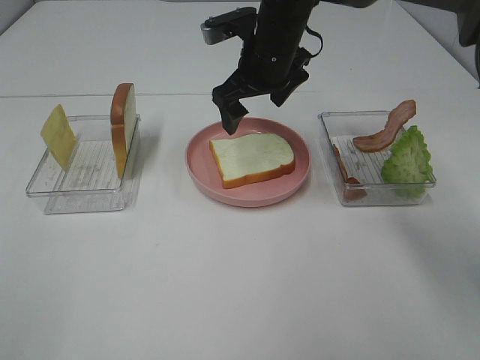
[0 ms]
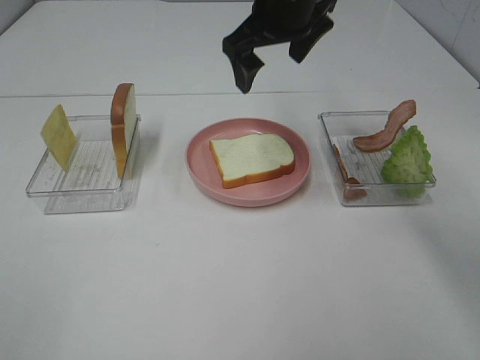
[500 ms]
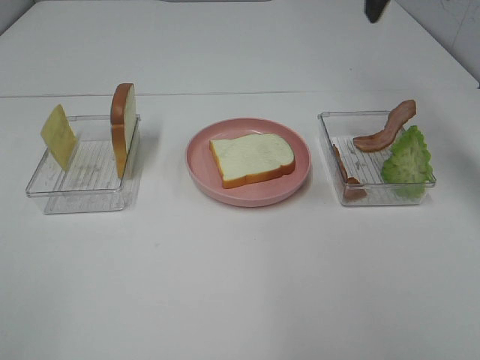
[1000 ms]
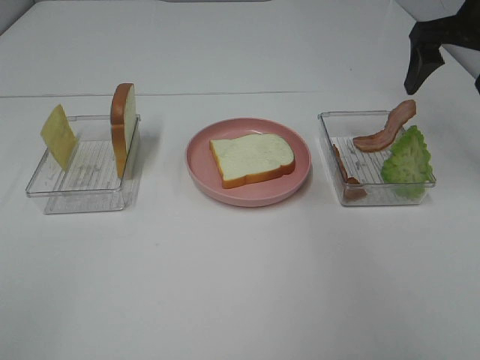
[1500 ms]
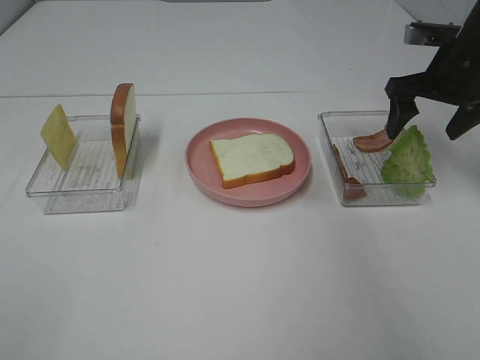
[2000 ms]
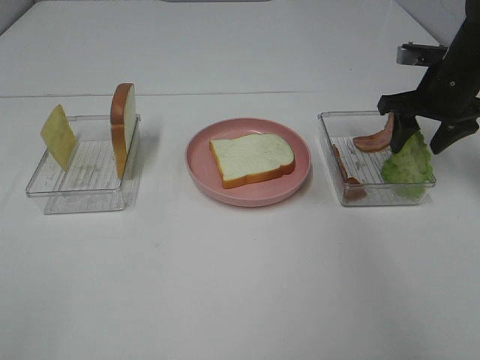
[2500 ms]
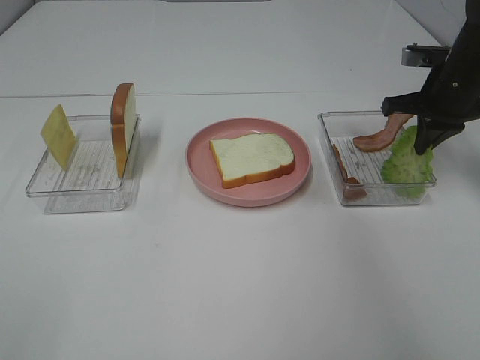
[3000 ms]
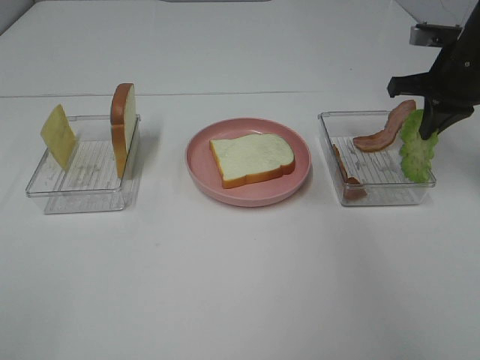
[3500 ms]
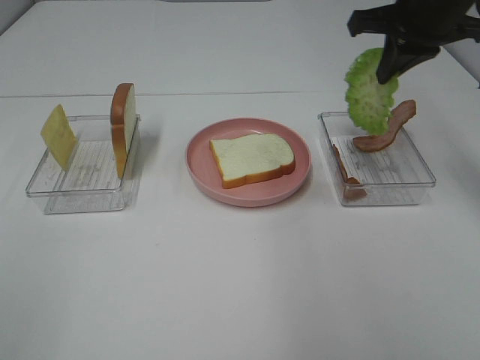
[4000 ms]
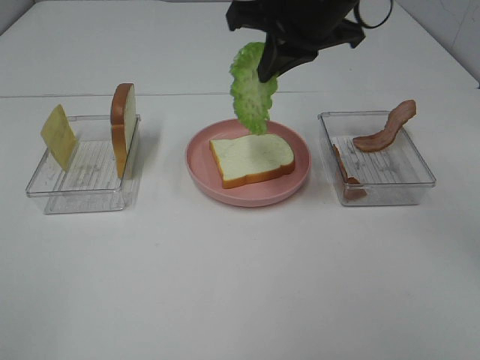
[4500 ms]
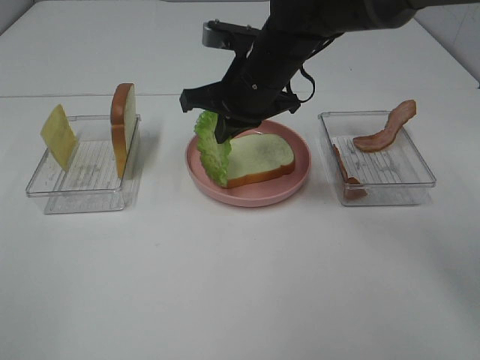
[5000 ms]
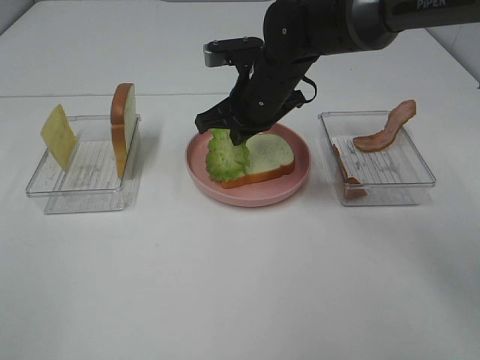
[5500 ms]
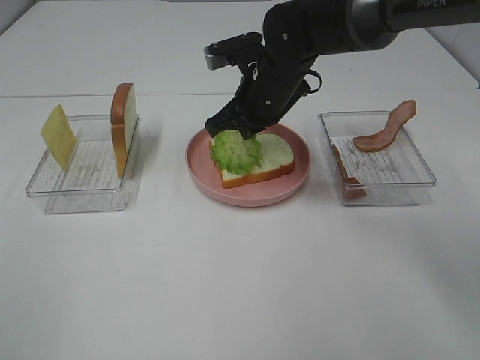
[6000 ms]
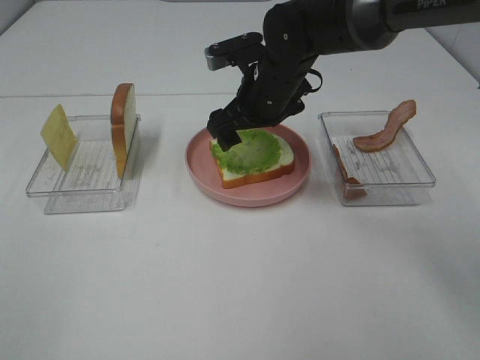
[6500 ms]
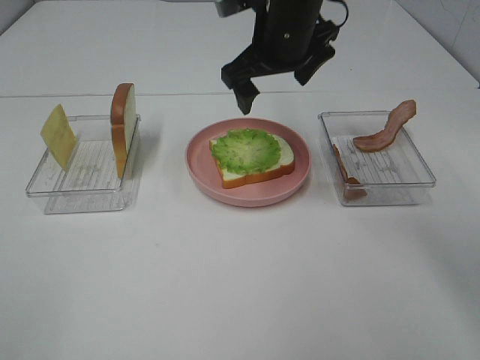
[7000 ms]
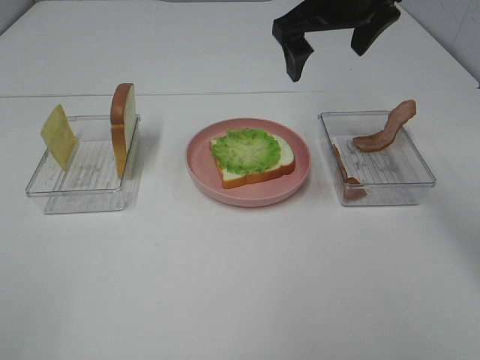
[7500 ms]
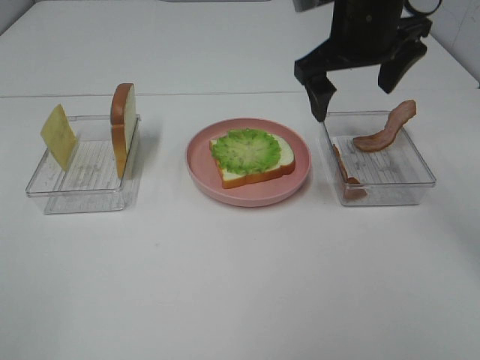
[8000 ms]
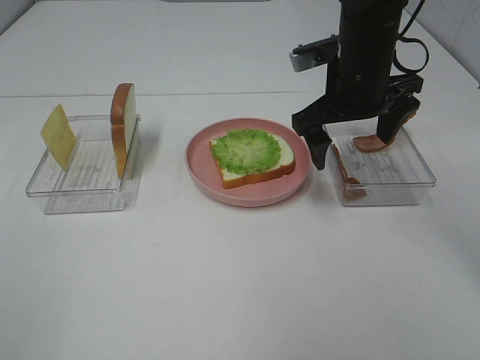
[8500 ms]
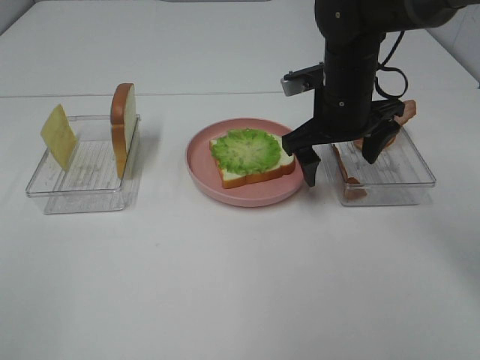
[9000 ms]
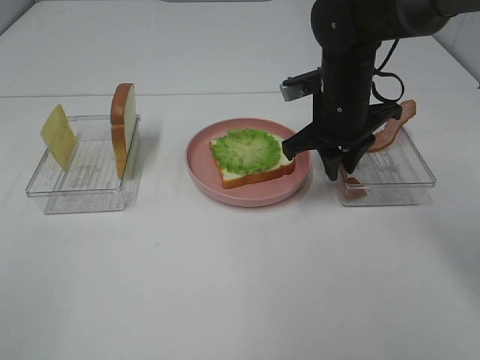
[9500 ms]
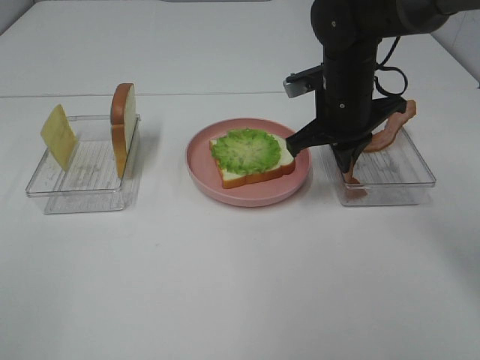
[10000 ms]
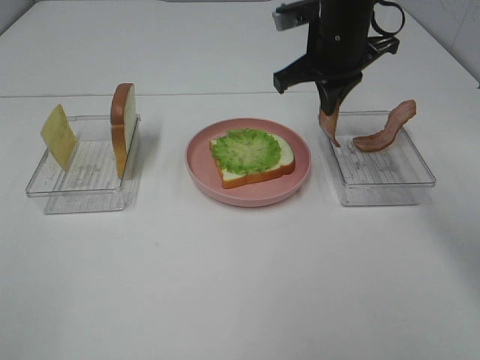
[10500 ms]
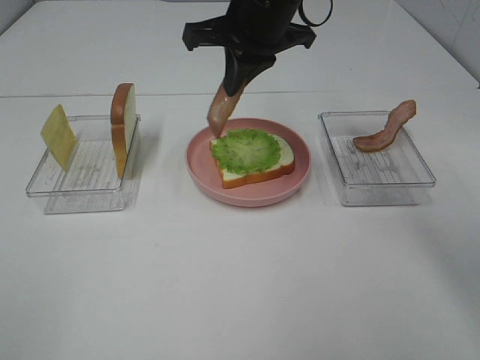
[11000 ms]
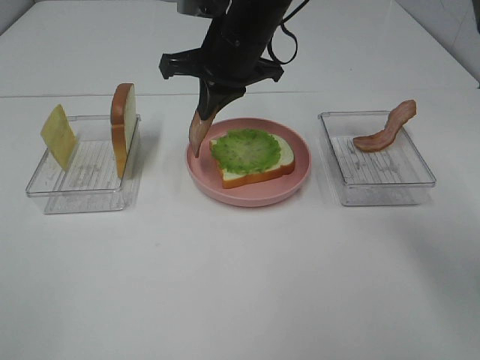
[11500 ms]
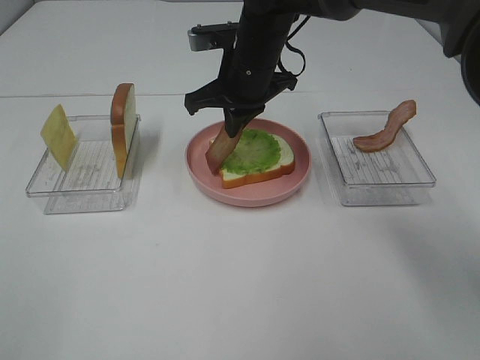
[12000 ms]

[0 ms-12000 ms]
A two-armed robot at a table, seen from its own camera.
Task of the whole recording: Make sandwiches.
Step, 500 ms to 3000 ms: Right hand:grab the lettuce slice.
Step, 3500 ms to 6500 ms: Right hand:place the lettuce slice on the bread slice.
Step, 7000 ms to 9500 ms: Right hand:grab the bacon.
0 ms to 2000 ms: The right gripper shifts roughly 25 cm to the right.
2000 ms to 4000 ms: The right gripper shifts approximately 10 cm upward and to the left, and closes up.
4000 ms to 6000 ms: The right gripper goes about 20 cm to the left and downward.
6000 ms to 8000 ms: The right gripper travels upward and to the right by roughly 15 cm, and opens.
8000 ms to 10000 ms: The right gripper goes approximately 10 cm downward, and closes.
10000 ms to 12000 ms: The right gripper goes approximately 10 cm to the left.

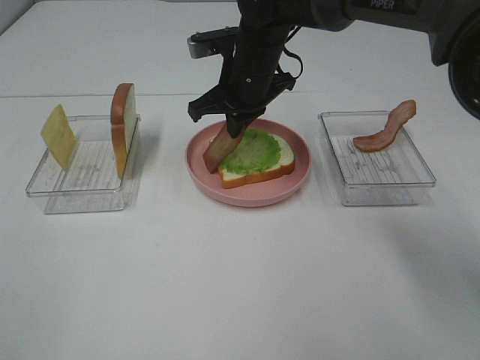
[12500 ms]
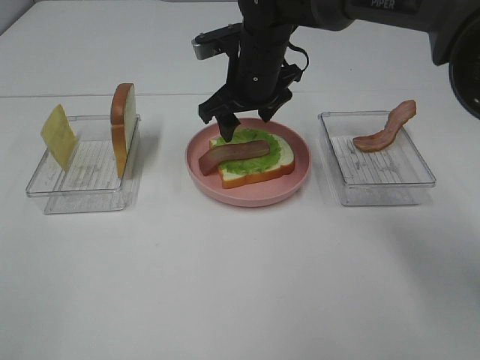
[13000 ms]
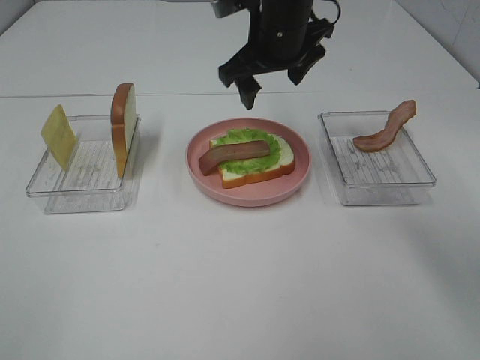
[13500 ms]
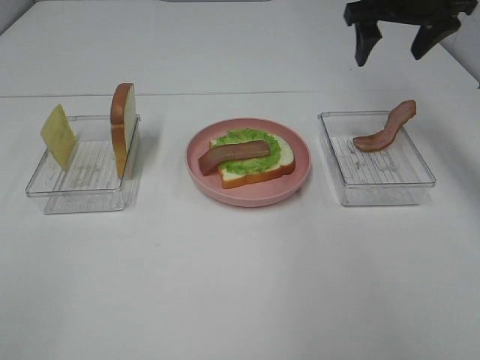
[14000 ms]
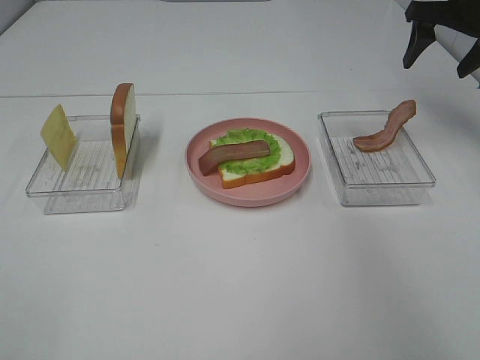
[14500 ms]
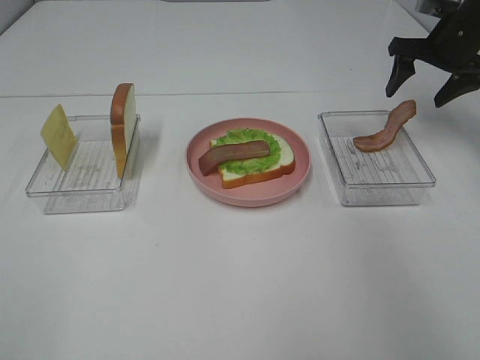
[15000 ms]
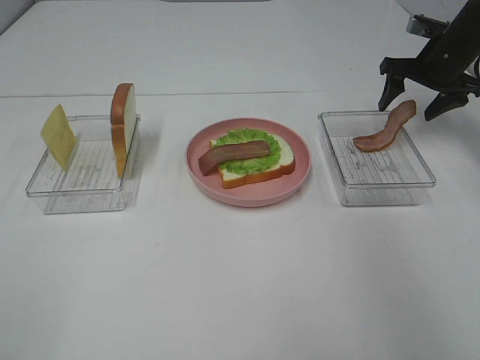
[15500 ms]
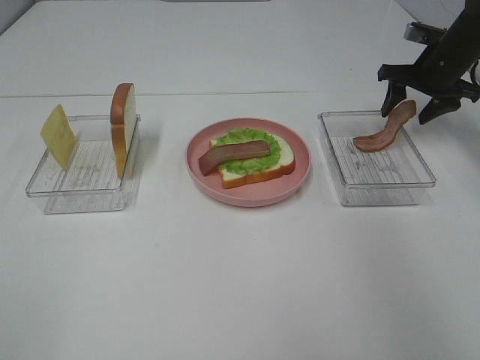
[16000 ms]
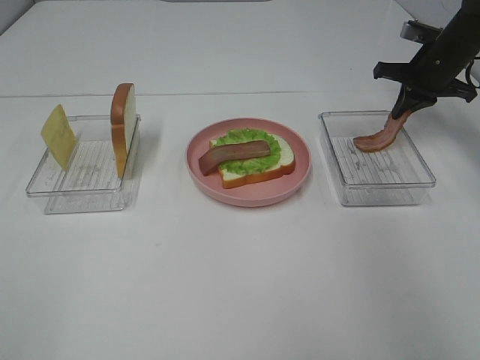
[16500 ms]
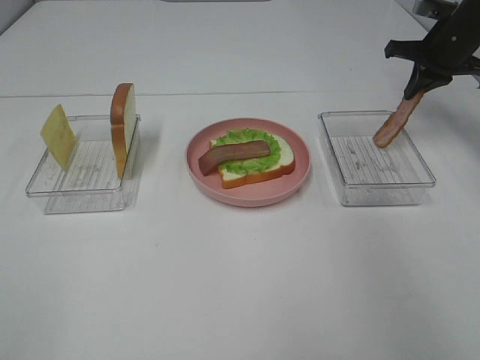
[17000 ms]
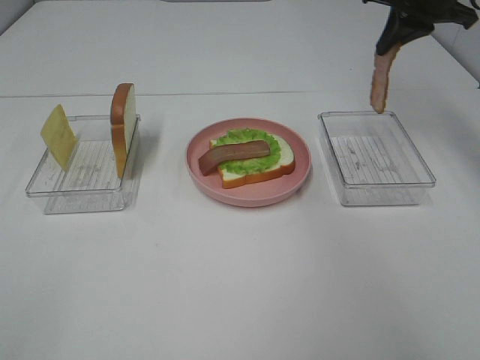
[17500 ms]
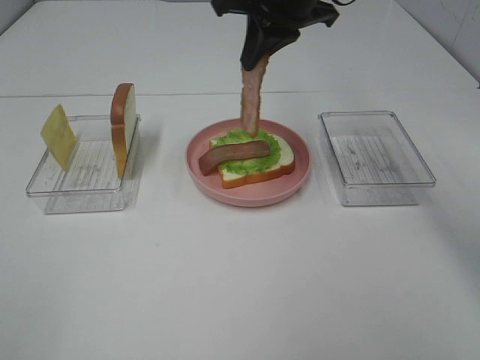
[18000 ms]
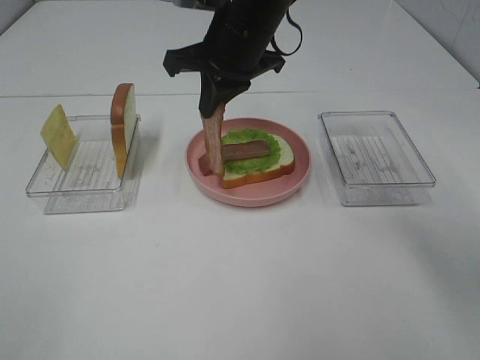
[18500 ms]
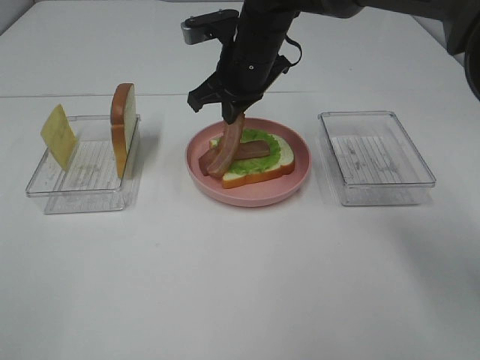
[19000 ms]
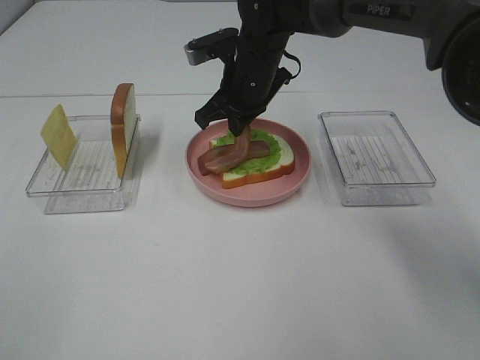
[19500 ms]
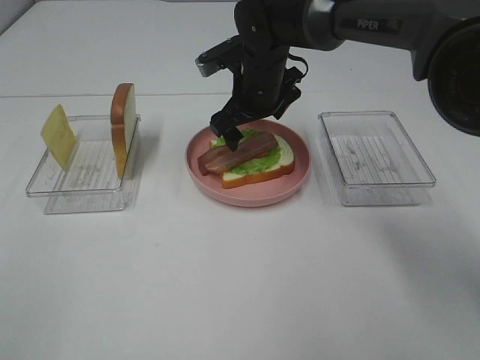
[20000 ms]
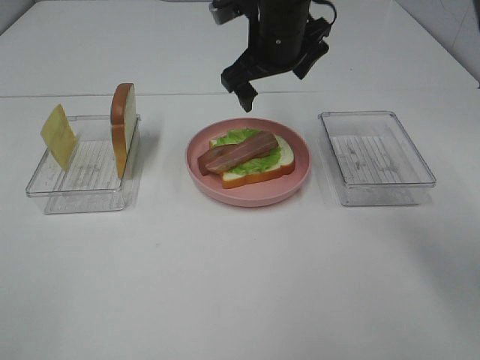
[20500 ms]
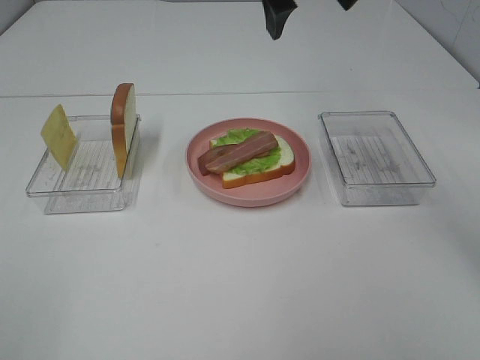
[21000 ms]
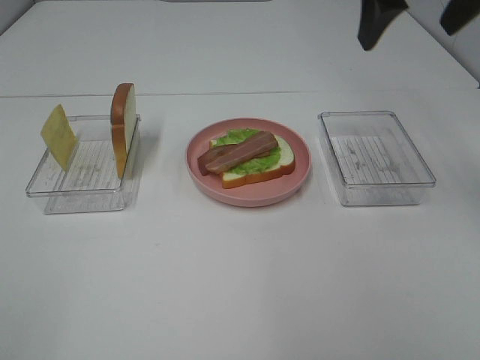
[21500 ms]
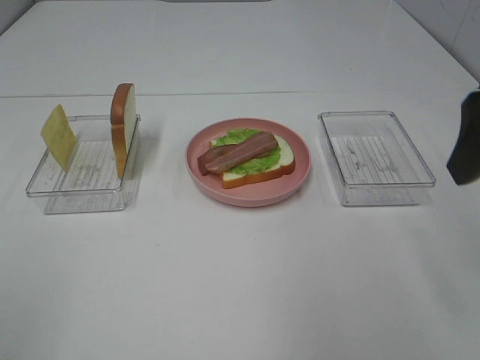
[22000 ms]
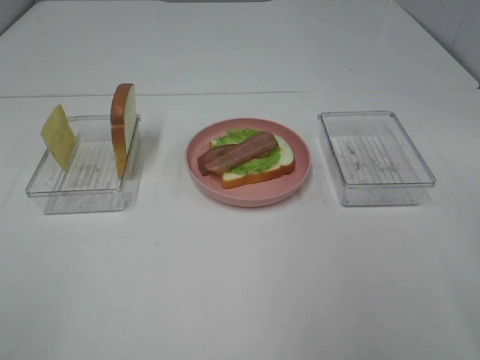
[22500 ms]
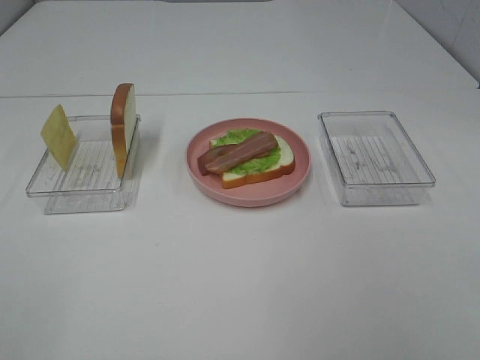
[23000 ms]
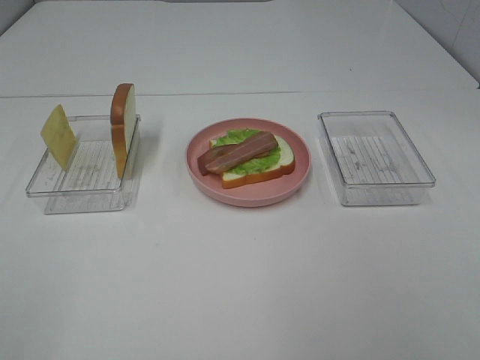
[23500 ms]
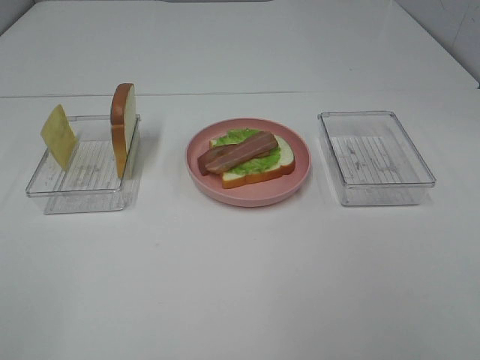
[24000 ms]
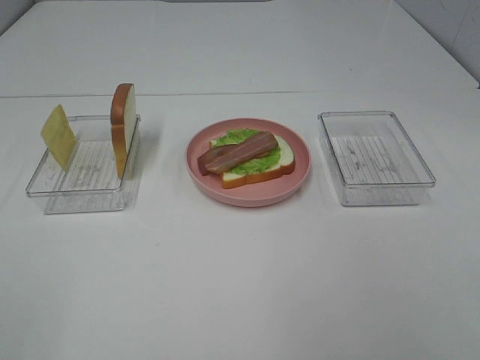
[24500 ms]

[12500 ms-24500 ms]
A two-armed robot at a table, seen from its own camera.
Task of the whole recording: Make sandwiches.
Step, 13500 ms to 17000 ms: Right hand:grab the bacon.
Step, 17500 ms to 20000 ms: Right hand:place bacon on bacon.
12500 ms to 14500 ms: The right gripper is displaced to the right by approximately 30 cm, and opens up.
14500 ms to 16500 ms: The right gripper travels downward by roughly 10 cm, and closes up.
16500 ms to 18500 ms: The right gripper is displaced to the left by roughly 30 cm.
18500 ms to 20500 ms: The right gripper travels downward and back again, about 10 cm each way, and opens up.
20500 ms to 22500 ms: The right gripper goes about 40 cm backward and to the right.

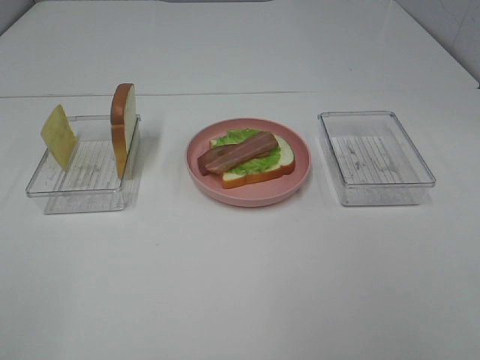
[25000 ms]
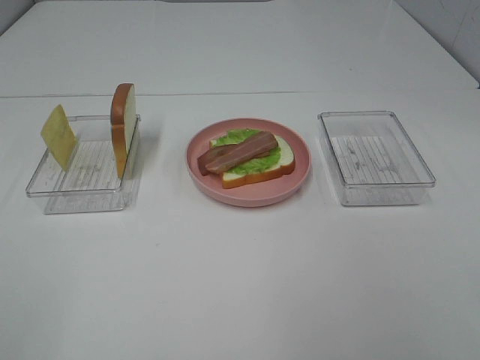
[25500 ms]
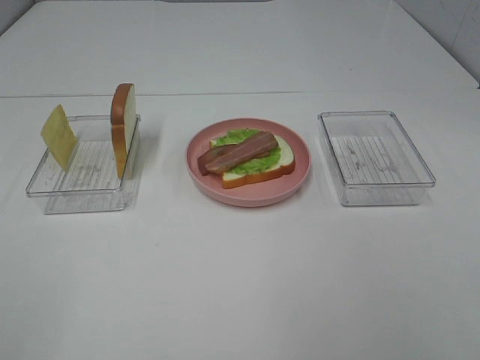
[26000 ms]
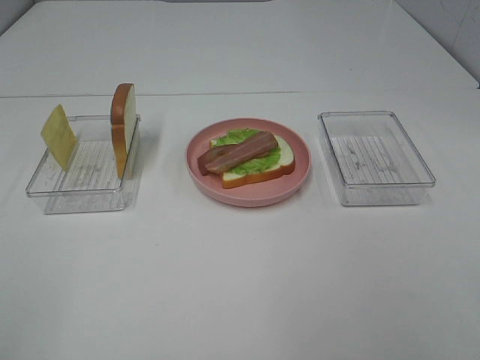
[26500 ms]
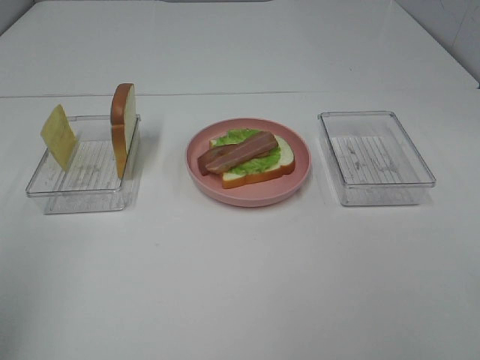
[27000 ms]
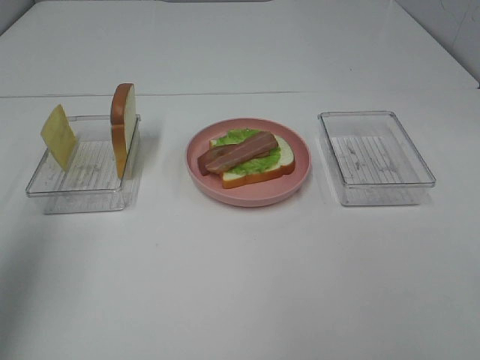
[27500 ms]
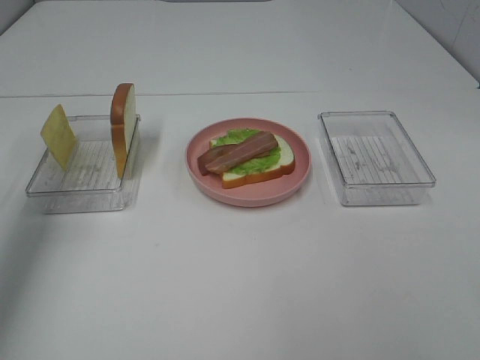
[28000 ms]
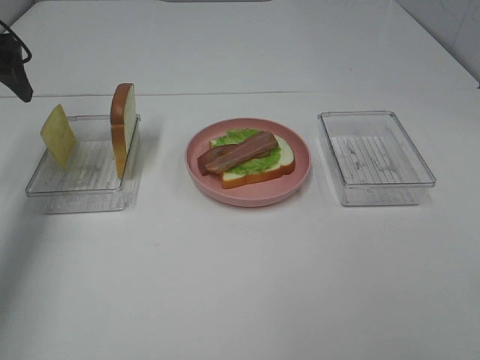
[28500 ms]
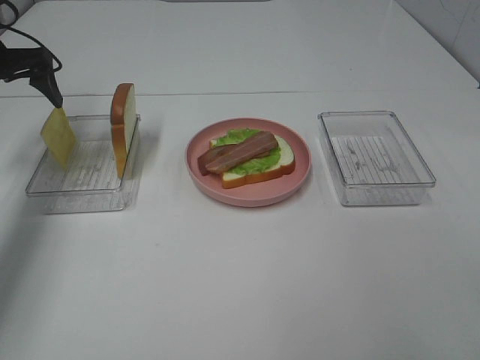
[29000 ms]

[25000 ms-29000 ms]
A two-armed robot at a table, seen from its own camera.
Task of the whole recording: Make sandwiches.
27000 ms to 29000 ms: The left gripper goes about 35 cm forward.
